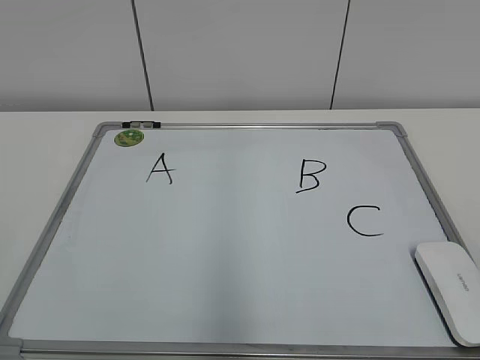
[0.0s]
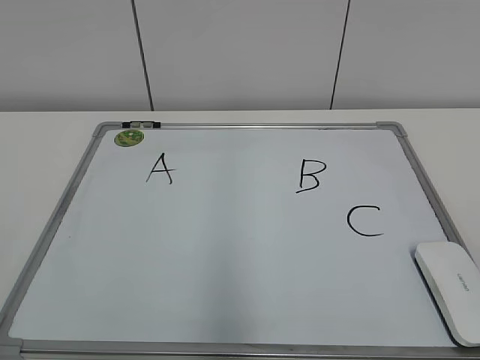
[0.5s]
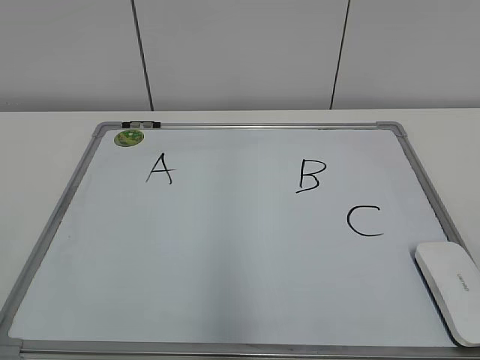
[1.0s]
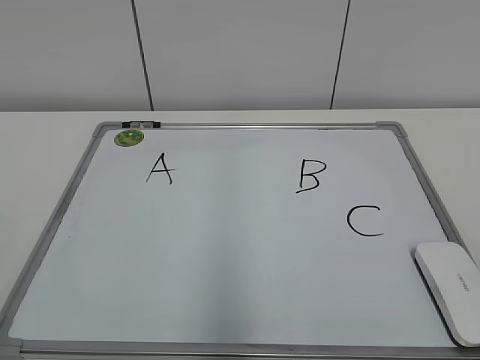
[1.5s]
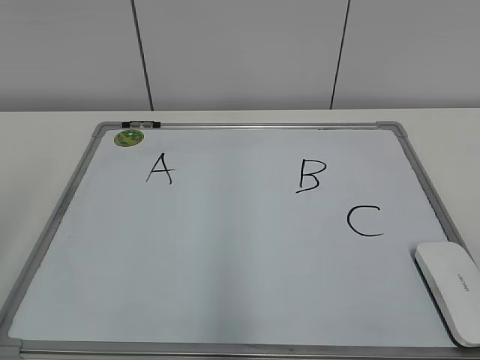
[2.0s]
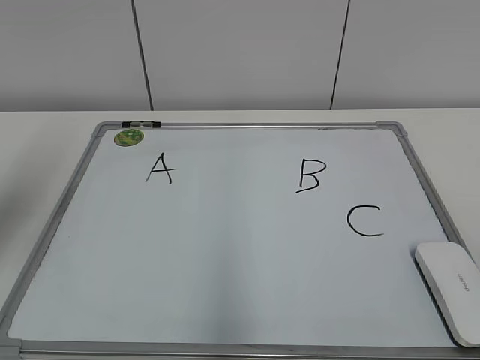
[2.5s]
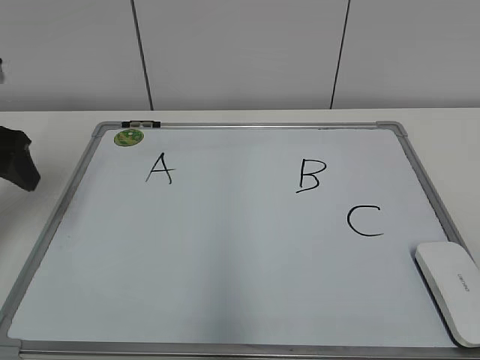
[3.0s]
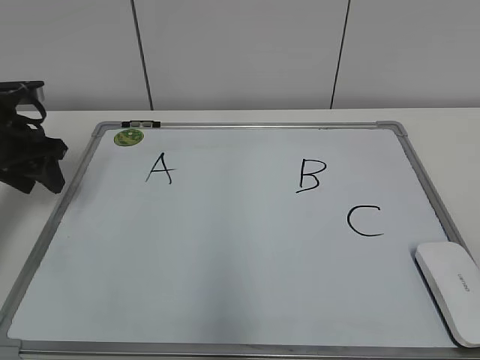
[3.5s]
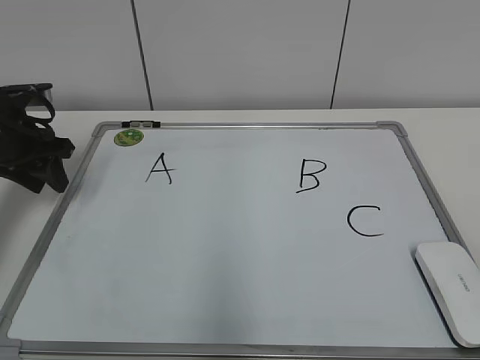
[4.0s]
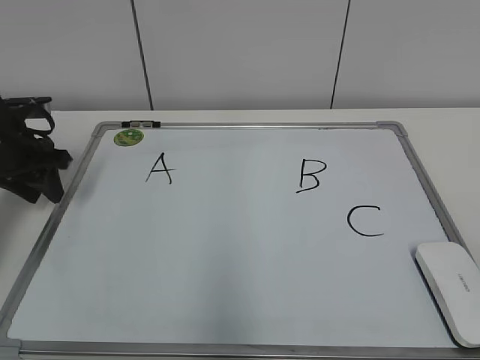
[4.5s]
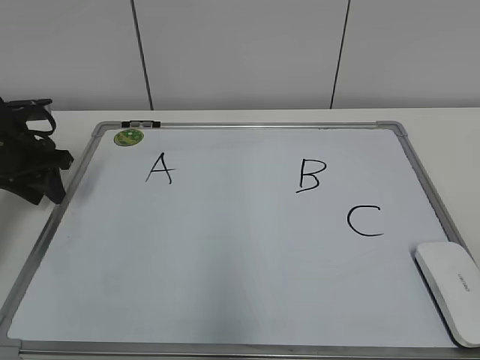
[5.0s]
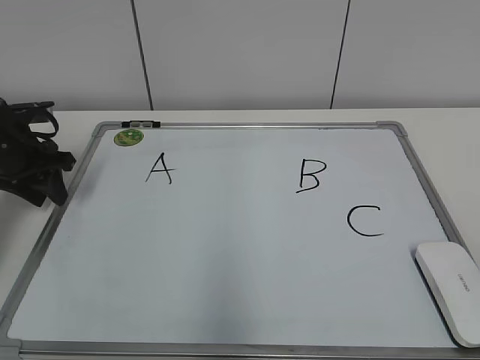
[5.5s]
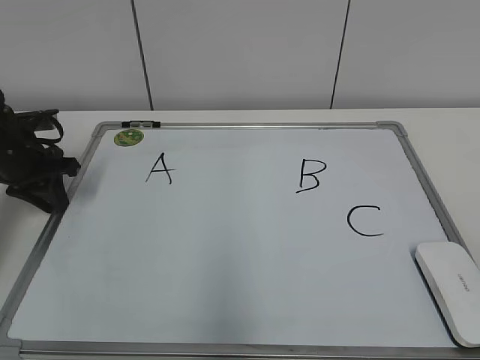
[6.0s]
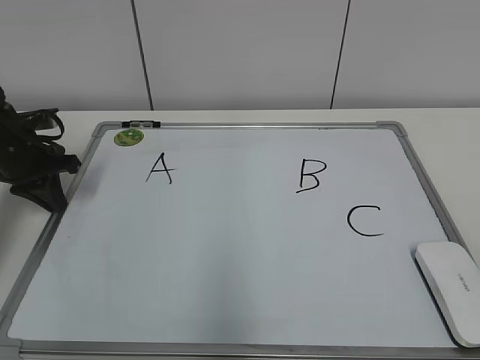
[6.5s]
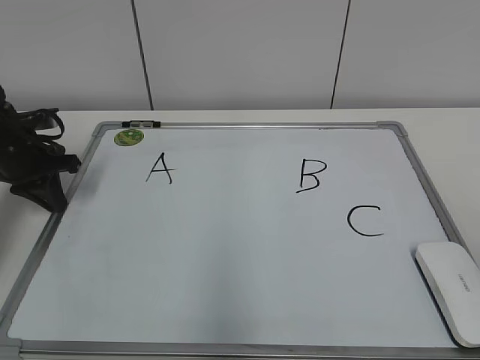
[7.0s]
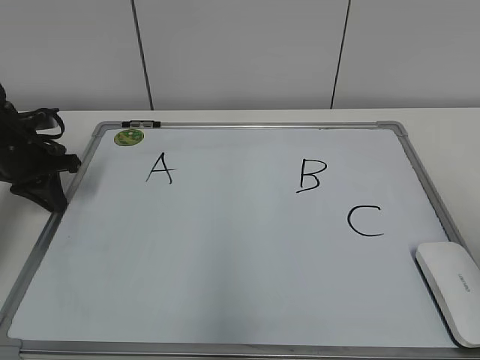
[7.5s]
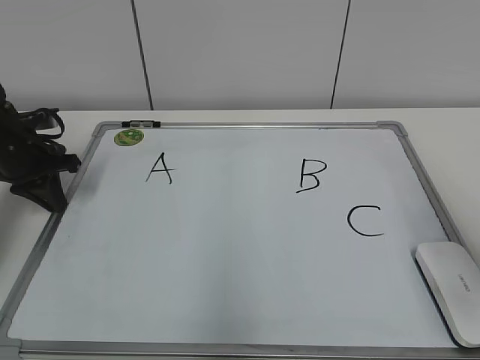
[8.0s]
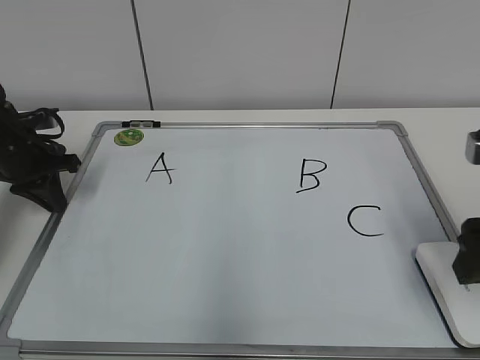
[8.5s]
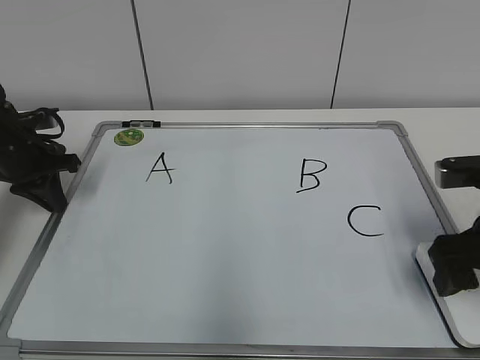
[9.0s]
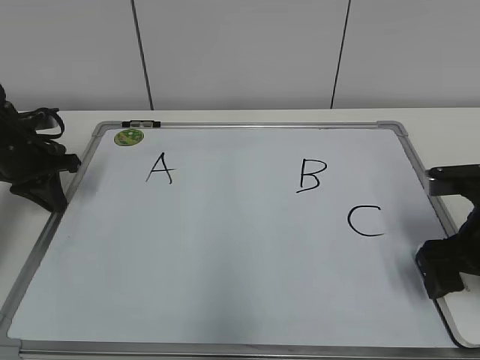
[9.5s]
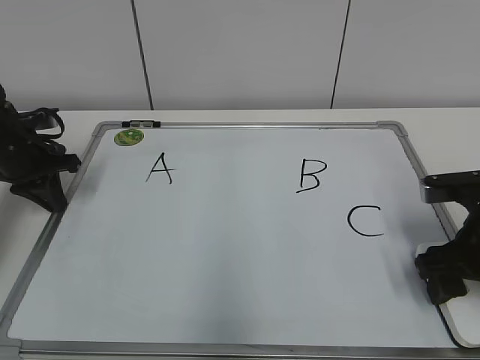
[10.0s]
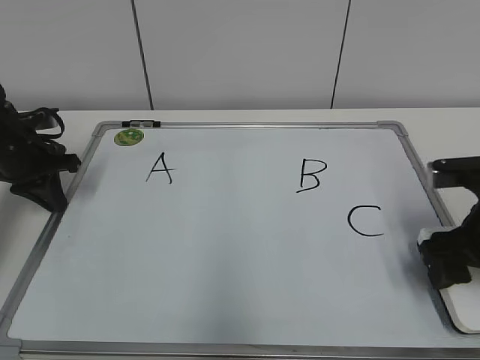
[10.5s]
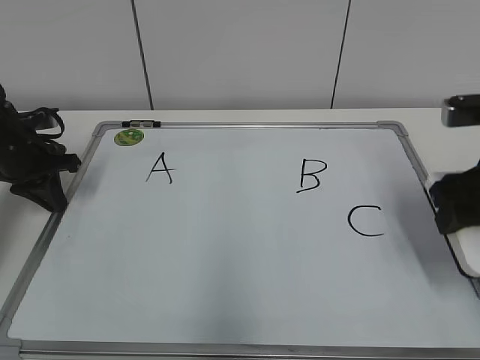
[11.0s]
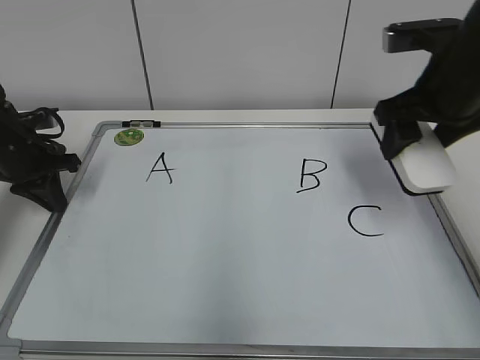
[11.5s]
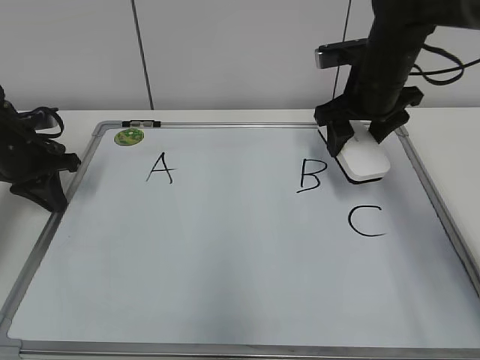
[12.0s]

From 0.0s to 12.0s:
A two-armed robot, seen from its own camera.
Task of the whole recording: pick up the eraser on the blackboard and erase the letter "B".
Step, from 0.0s to 6.0s: Hold the drawing board steady with your left hand.
Step, from 6.5s to 10.0s: Grab the eraser with your right hand.
From 2.0s to 4.0s: The left gripper shifts approximately 35 cm forward and downward, and closes up.
From 4.0s to 6.0s: The grippers move only a little.
From 6.0s to 8.0s: The right gripper travels forward by some 15 cm.
From 8.0s to 10.0s: The right gripper heads downward and forward, covering roughly 15 cm, and opens, then closes again.
From 10.0s to 12.0s: The right gripper shifts some 20 cm forward, upward and to the left.

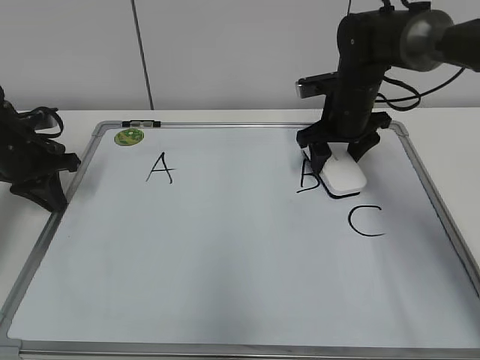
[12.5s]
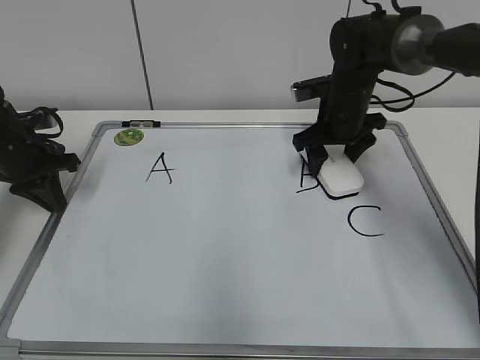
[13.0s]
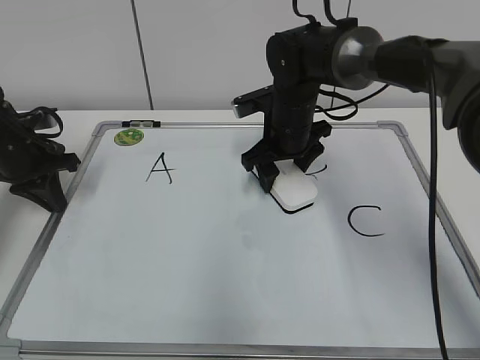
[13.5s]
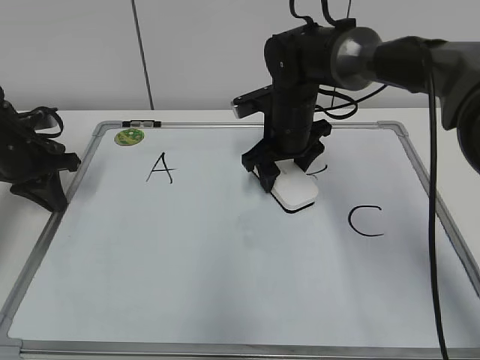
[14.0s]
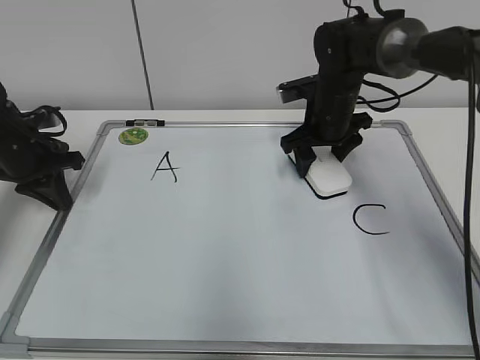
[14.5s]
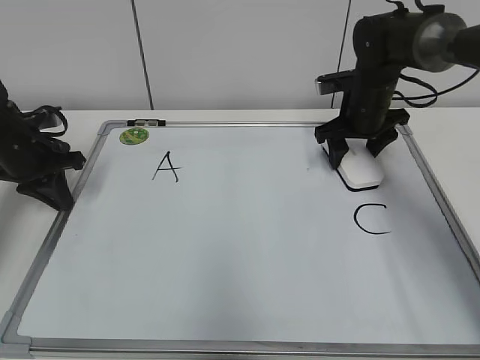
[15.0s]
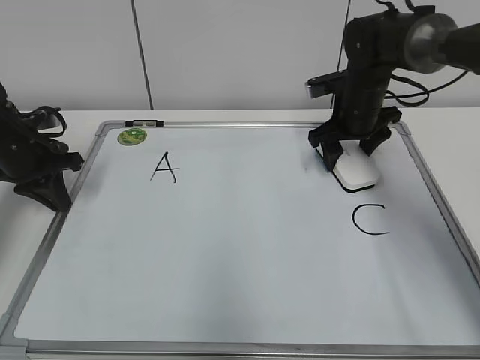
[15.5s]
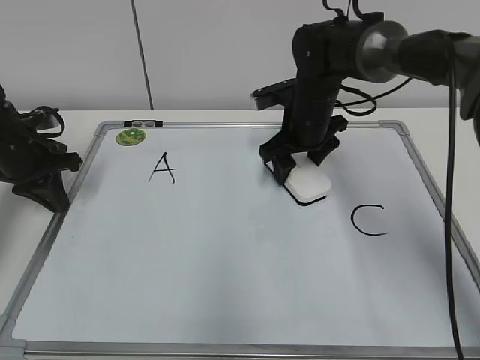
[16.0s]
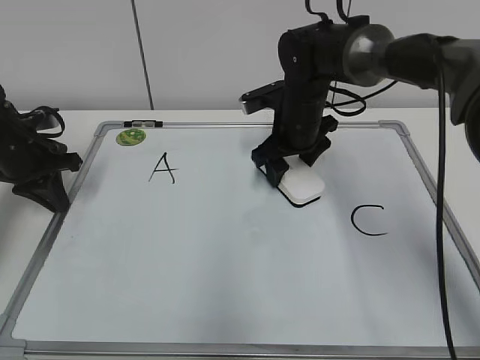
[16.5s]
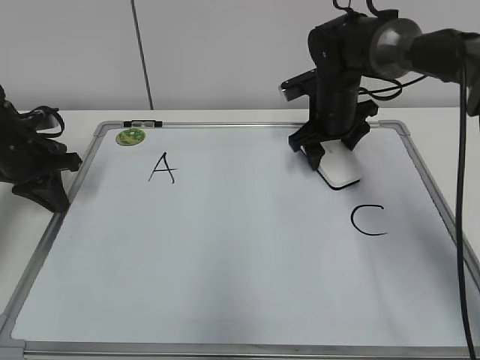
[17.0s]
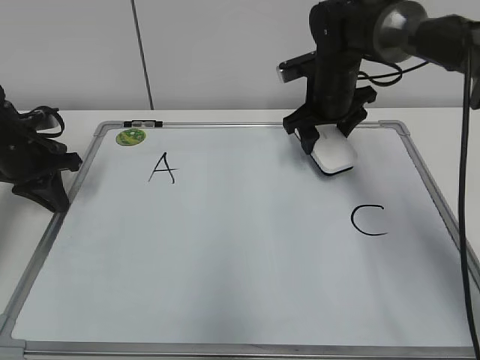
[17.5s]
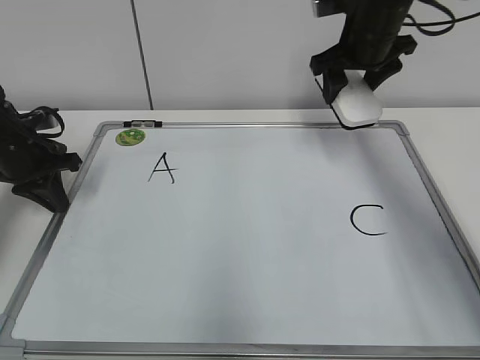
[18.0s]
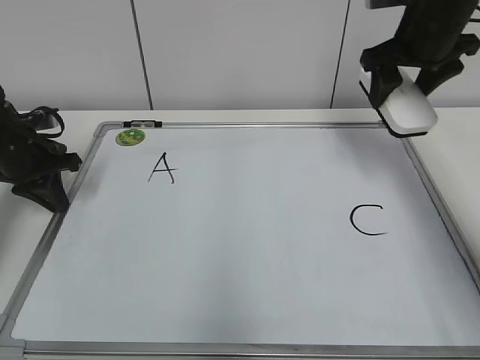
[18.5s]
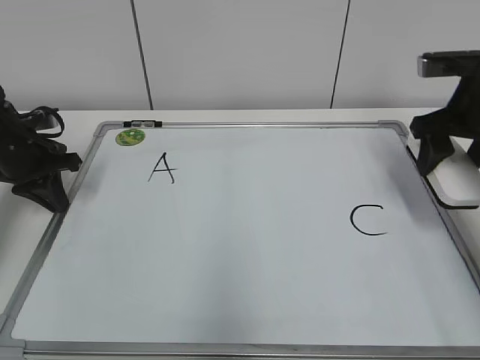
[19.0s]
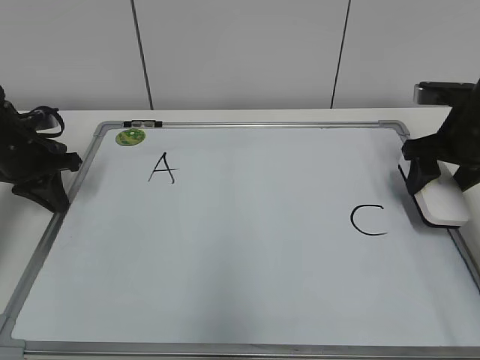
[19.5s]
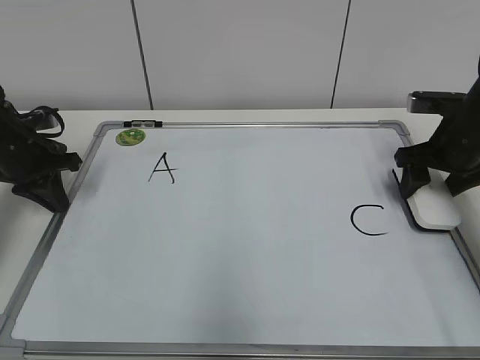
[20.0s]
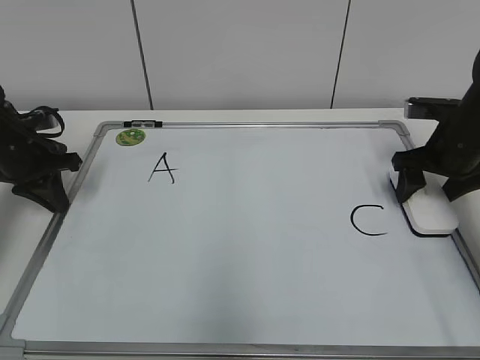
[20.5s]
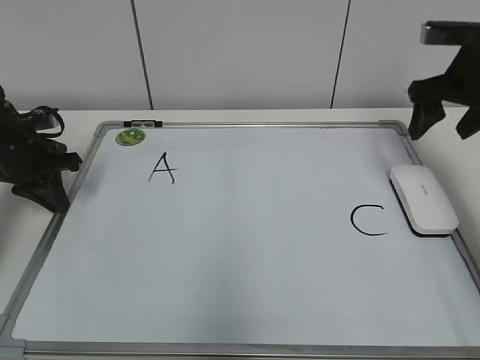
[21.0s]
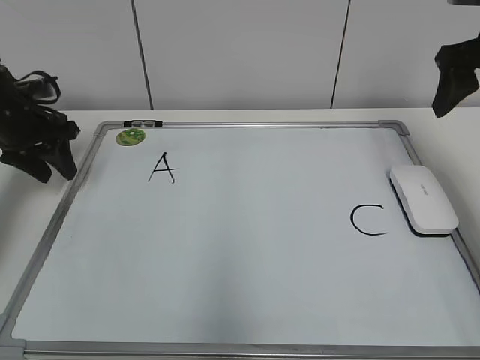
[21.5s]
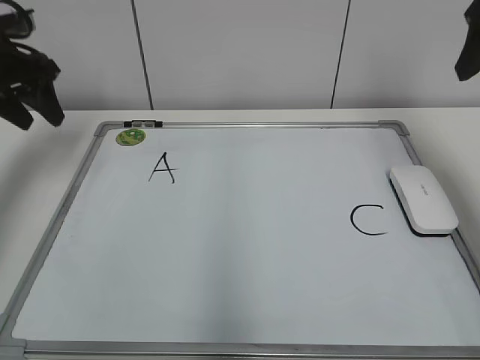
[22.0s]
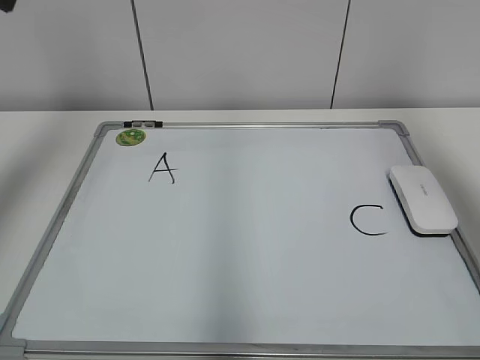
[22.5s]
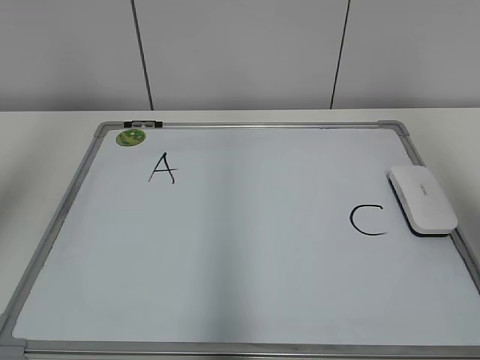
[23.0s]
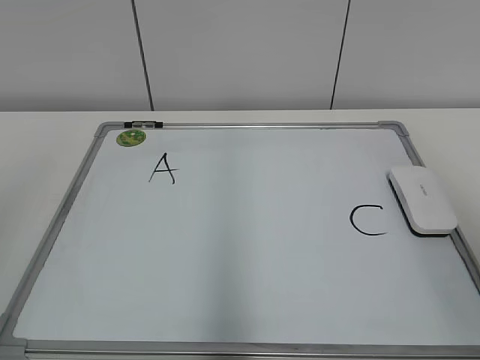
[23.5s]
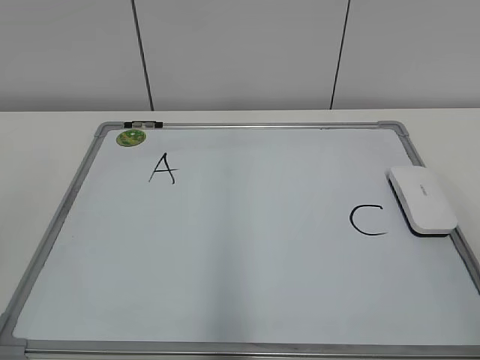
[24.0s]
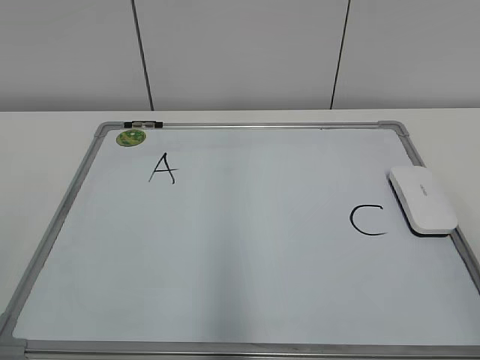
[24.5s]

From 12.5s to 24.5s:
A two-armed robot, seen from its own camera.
Task of the whole recording: pick up the eraser on the blackboard and erase the letter "B".
Step, from 12.5s to 17.0s: Erase the letter B with your right hand.
Step, from 17.5s to 20.0s: Put down the eraser with your right hand.
From 12.5s to 14.5s: The right gripper moves some 10 cm to the left and comes back.
From 14.5s to 16.5s: The right gripper changes place by some 5 cm.
From 16.5s to 18.5s: The right gripper heads upward and to the right, covering some 20 cm.
From 18.5s to 20.5s: The right gripper heads downward and to the right, covering roughly 15 cm, and opens.
From 20.5s to 22.5s: The left gripper goes about 30 cm upward, and opens up; the right gripper travels upward and backward by some 30 cm.
From 22.5s to 24.5s: The right gripper heads backward and downward, covering some 30 cm. The left gripper is displaced backward by some 30 cm.

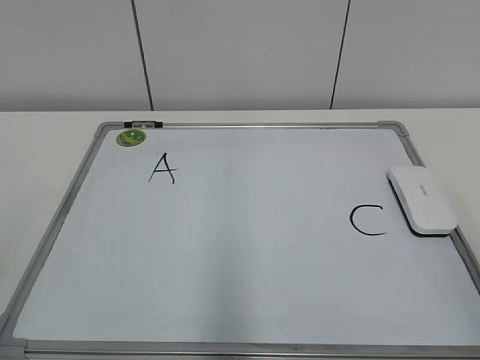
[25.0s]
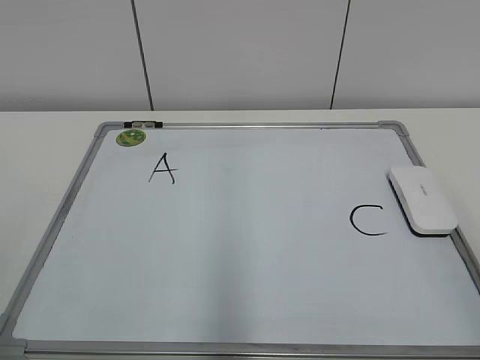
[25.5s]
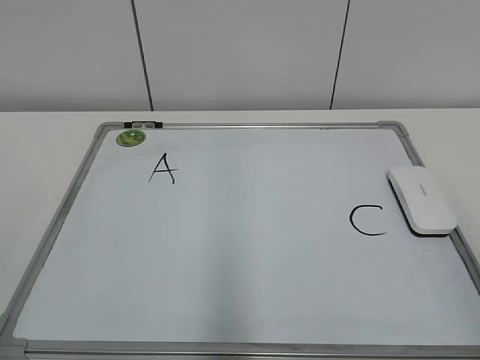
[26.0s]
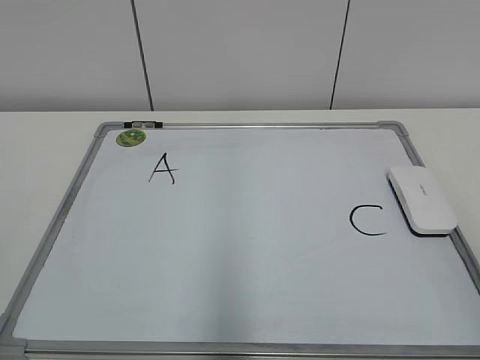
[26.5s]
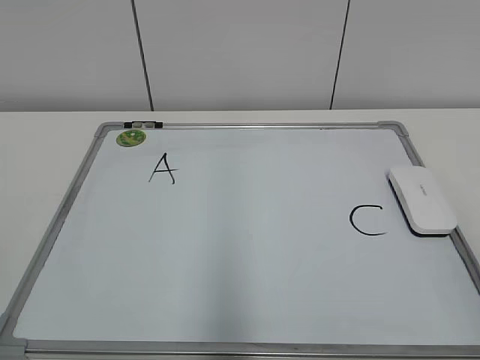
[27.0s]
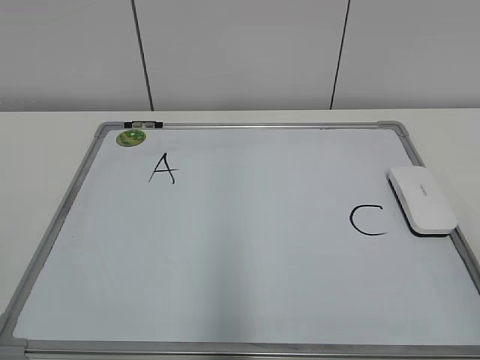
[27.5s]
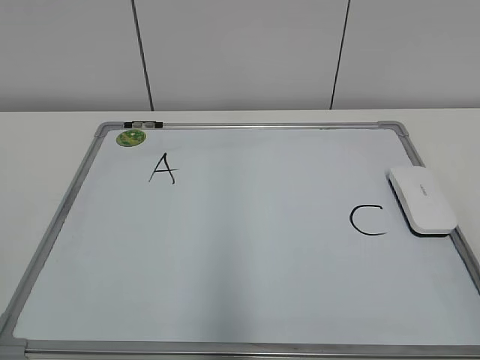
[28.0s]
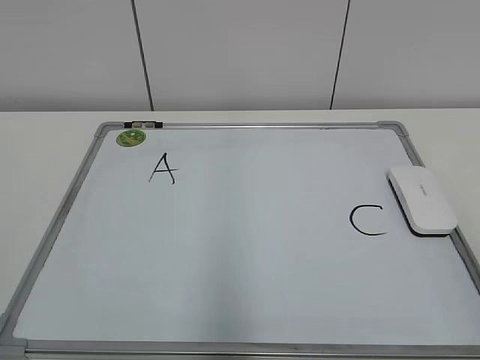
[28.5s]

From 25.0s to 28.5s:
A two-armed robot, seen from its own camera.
Task of the whole recording: pick up the eraser on the blackboard and erase the letter "B".
From 27.0s to 28.5s: The two grippers keep their place.
